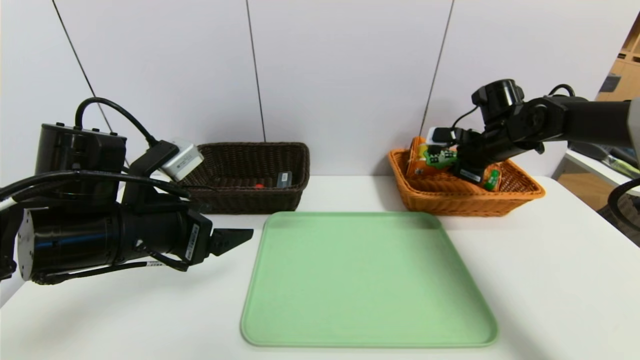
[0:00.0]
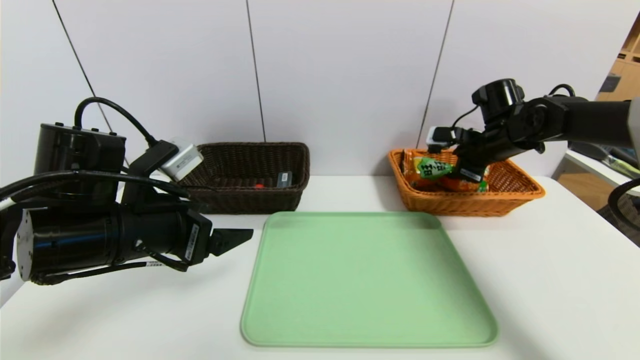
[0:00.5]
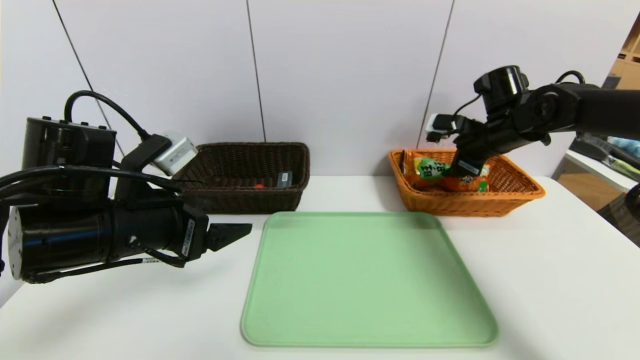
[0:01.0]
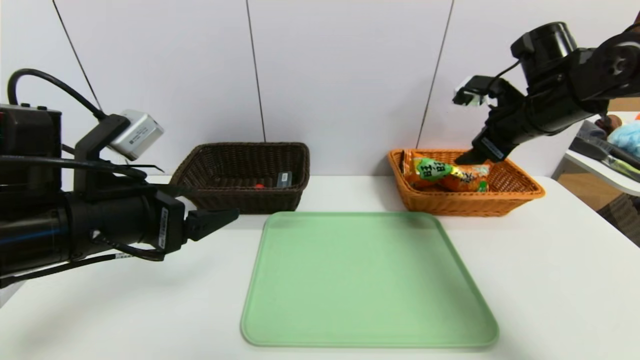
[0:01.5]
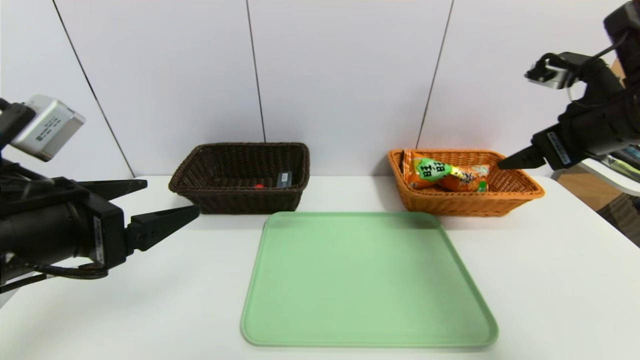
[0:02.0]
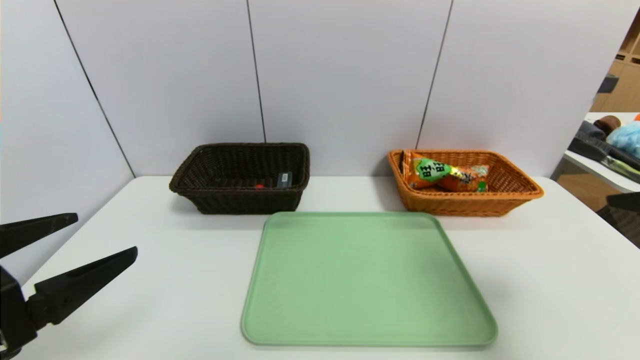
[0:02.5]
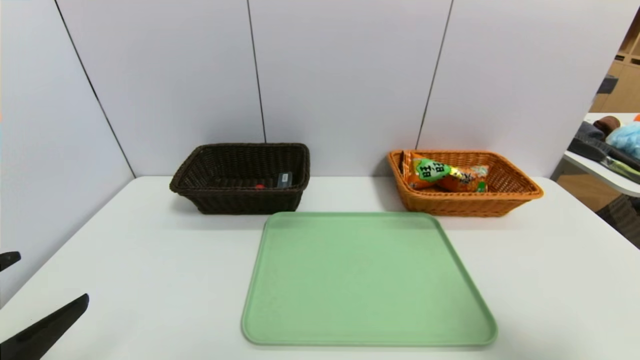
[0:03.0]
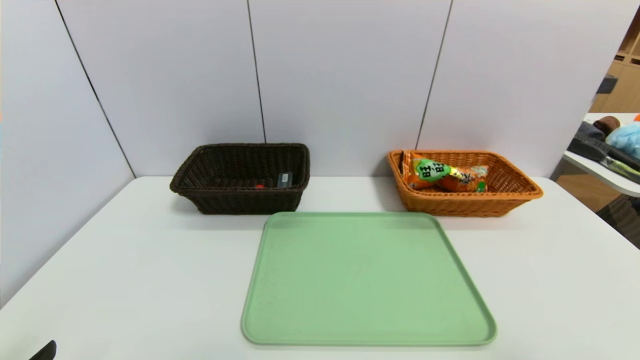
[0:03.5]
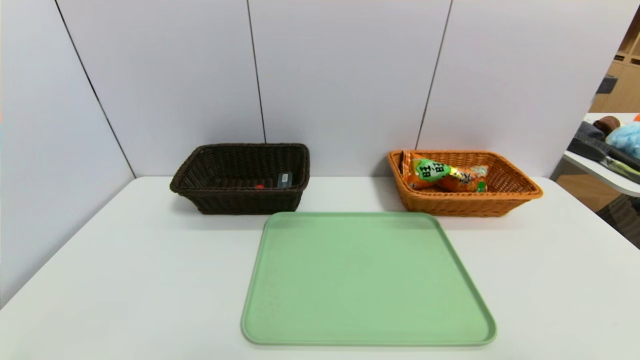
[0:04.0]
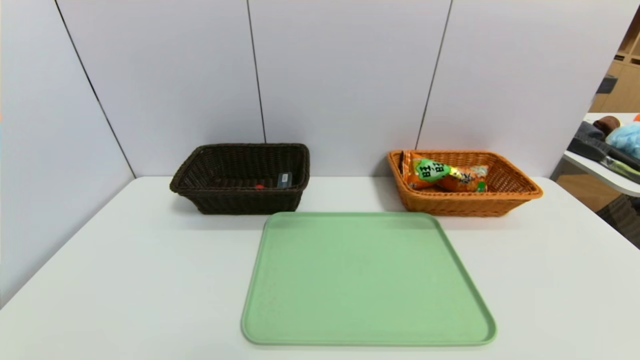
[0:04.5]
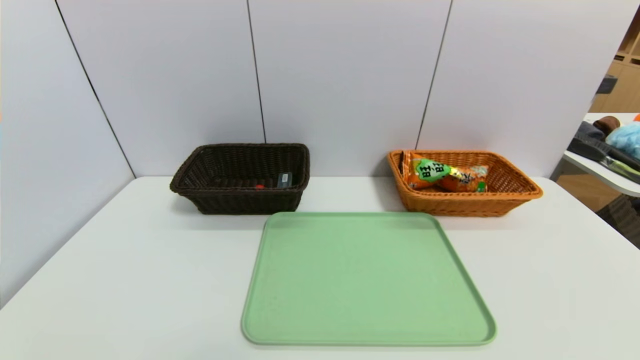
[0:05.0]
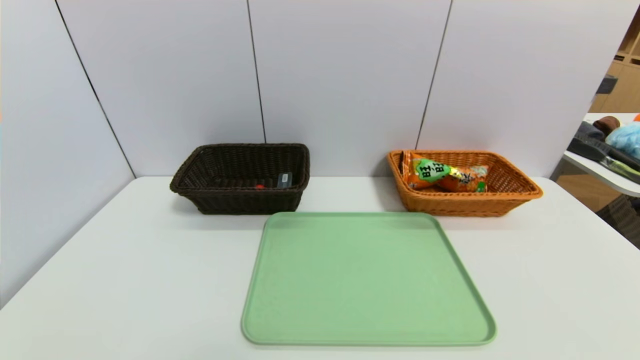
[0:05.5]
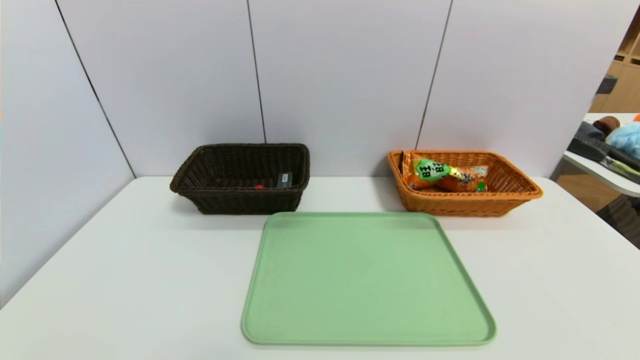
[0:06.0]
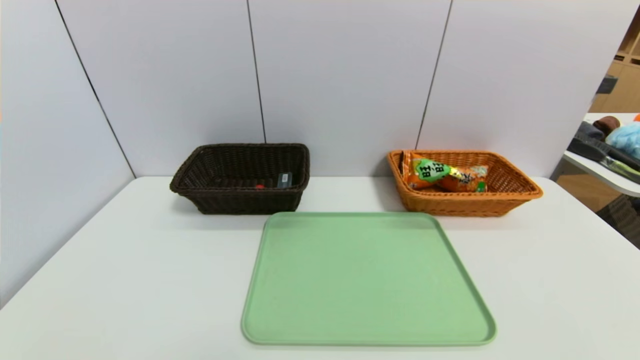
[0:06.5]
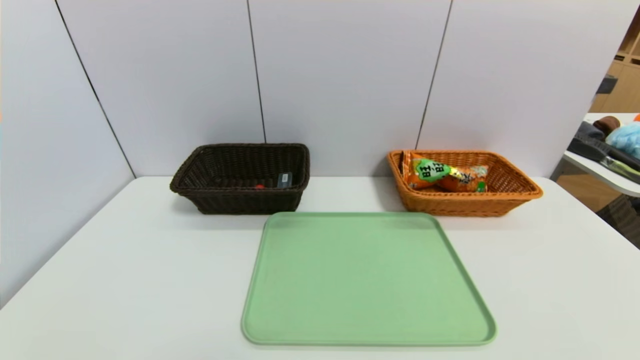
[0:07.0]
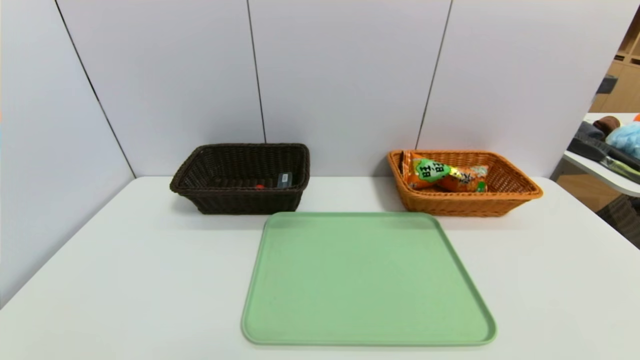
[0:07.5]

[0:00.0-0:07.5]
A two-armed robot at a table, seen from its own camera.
Task of the whole recording: place the food in the right basket with the right gripper, and place the non food items in the left basket with the left gripper.
0:00.0 to 0:02.0: The right gripper moves backward and upward, about 20 cm, and opens its fingers. The left gripper goes some 5 cm backward.
0:02.0 to 0:04.0: The left gripper shifts some 20 cm backward and downward. The right gripper heads backward, covering approximately 25 cm.

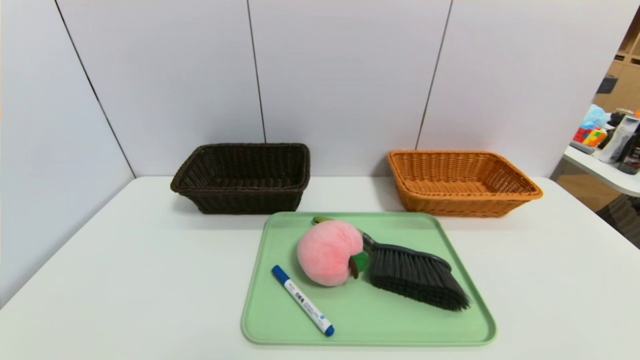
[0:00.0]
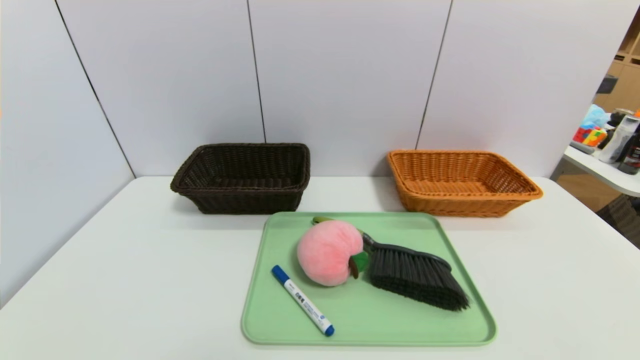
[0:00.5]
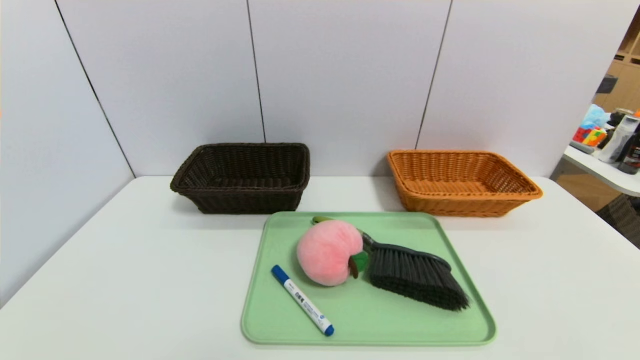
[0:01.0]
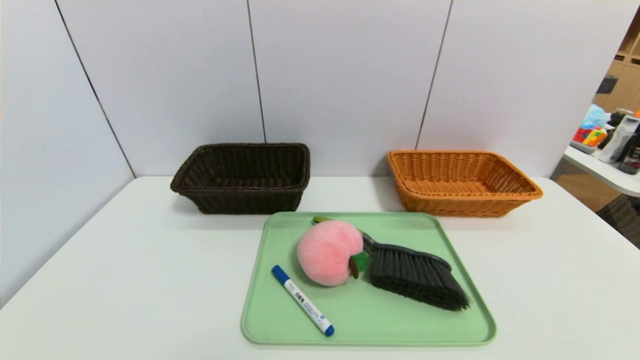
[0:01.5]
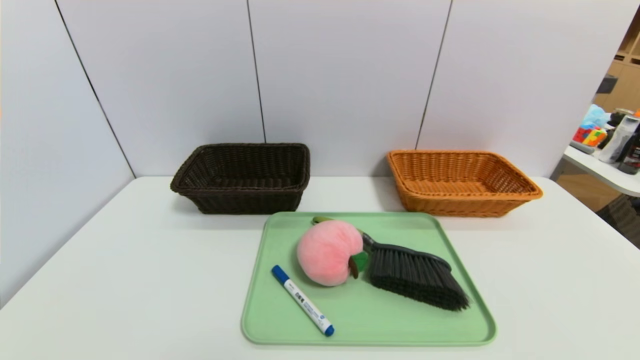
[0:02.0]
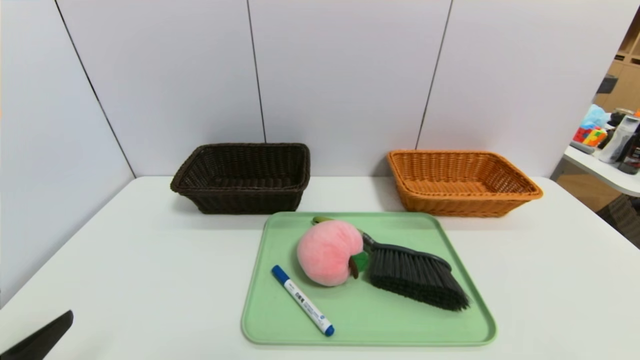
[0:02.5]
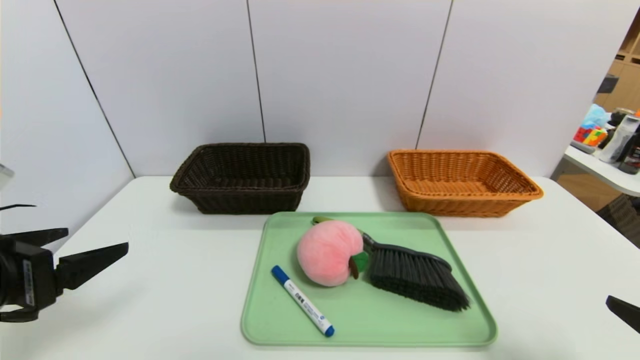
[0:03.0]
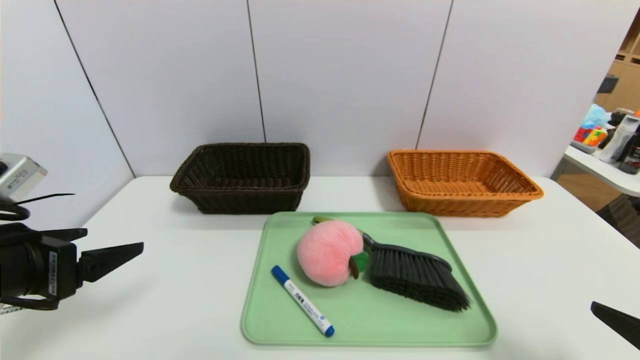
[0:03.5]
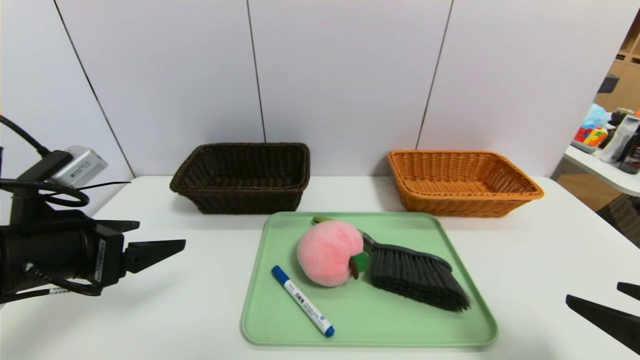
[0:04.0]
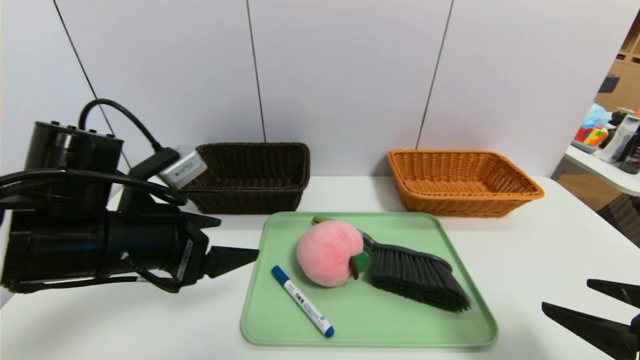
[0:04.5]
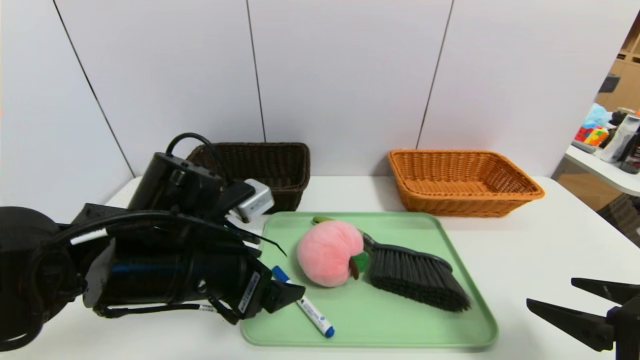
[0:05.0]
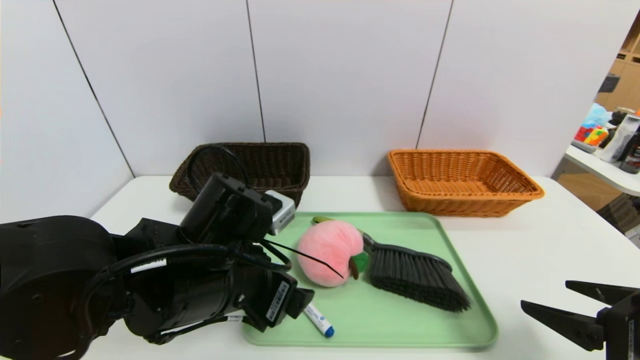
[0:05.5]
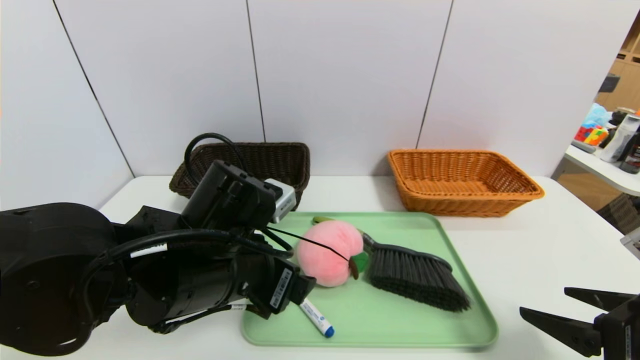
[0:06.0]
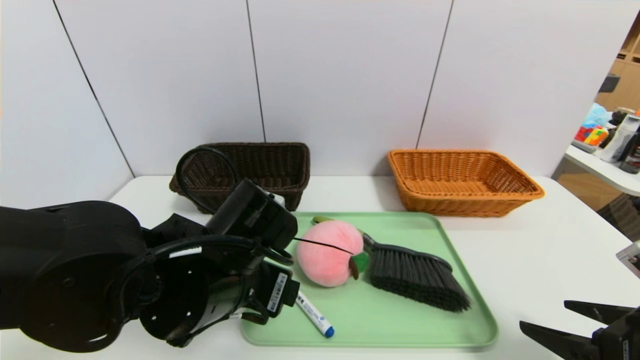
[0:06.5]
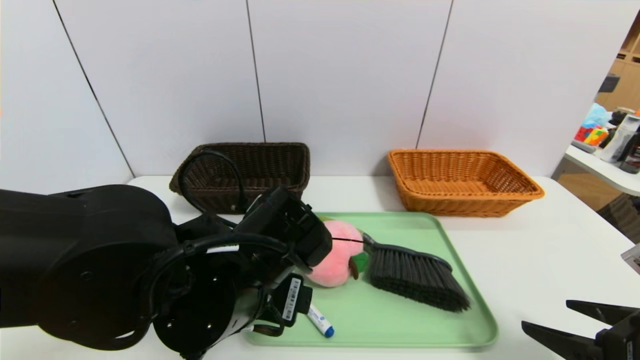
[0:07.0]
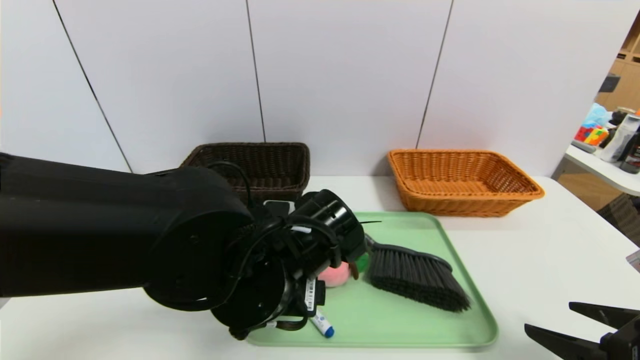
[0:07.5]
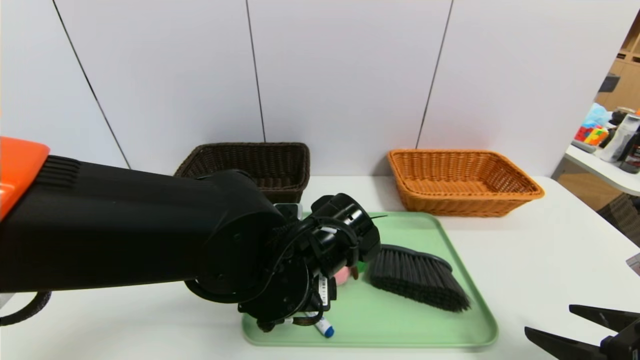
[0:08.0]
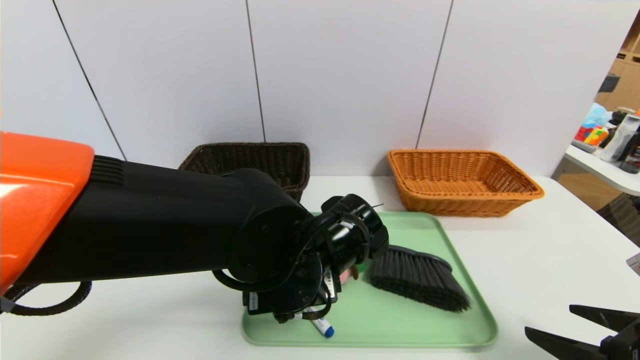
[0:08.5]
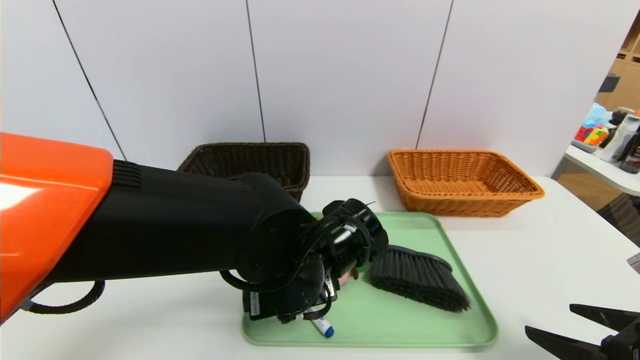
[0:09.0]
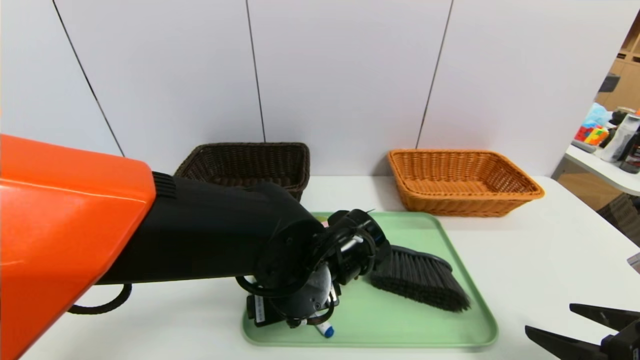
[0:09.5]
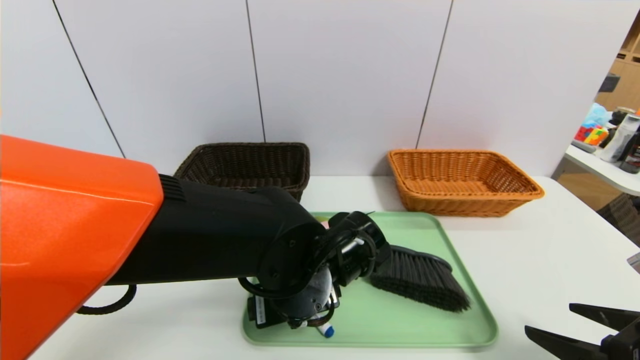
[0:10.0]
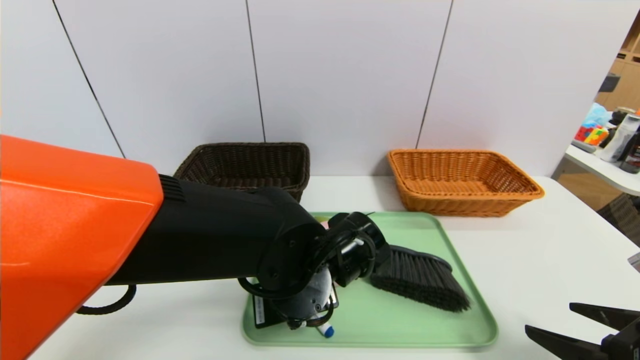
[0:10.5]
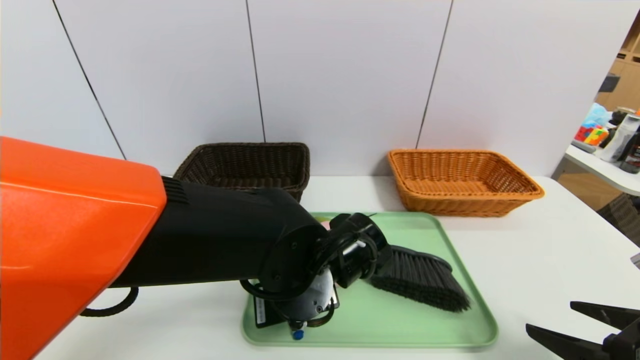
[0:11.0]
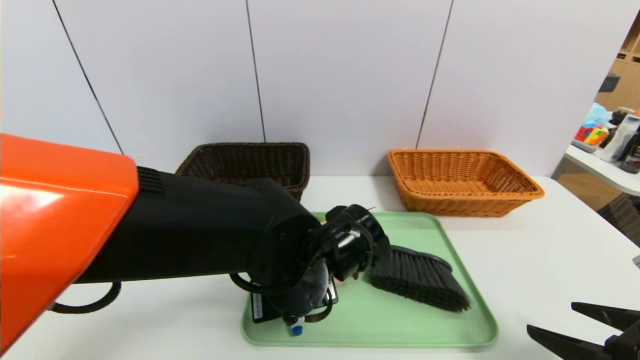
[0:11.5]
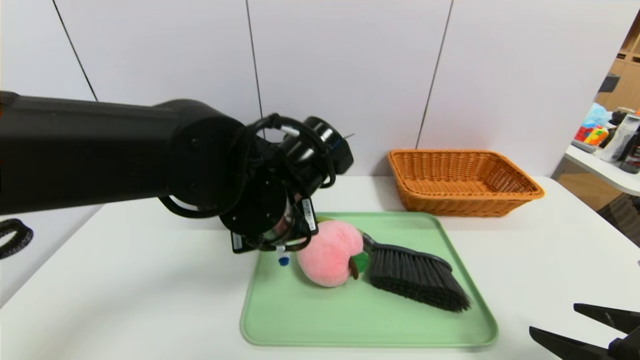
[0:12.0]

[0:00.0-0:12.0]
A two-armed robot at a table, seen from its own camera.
Task of the whole recording: place the food in the right basket with the right gripper, and place the non food items in the left basket with the left gripper.
0:02.0 to 0:04.0: The left gripper travels forward and upward by about 25 cm, while the right gripper travels forward and upward by roughly 15 cm.
0:04.0 to 0:06.0: The left gripper shifts about 15 cm to the right.
0:06.0 to 0:08.0: The left gripper heads to the right, covering some 5 cm.
0:08.0 to 0:10.0: The grippers move only a little.
0:10.0 to 0:12.0: The left gripper shifts roughly 10 cm upward, and closes up.
